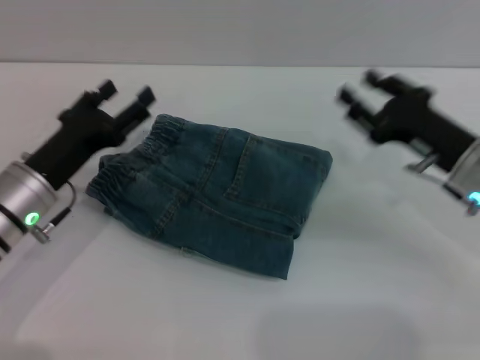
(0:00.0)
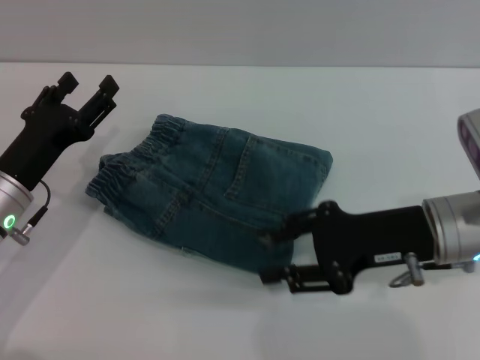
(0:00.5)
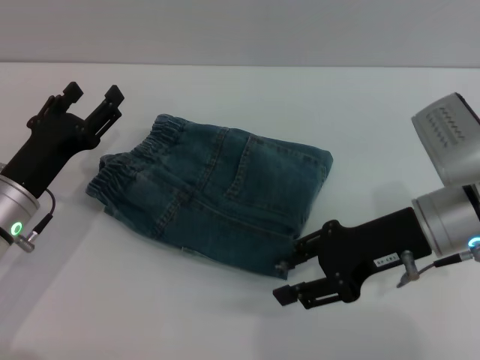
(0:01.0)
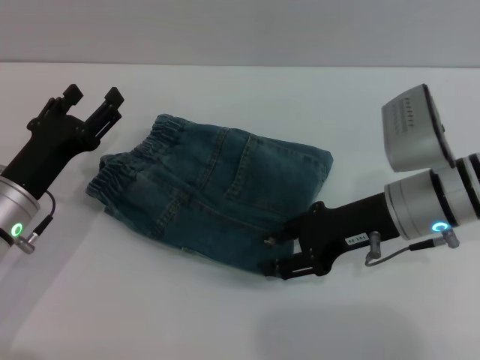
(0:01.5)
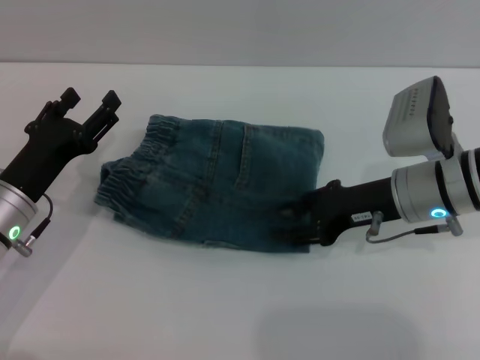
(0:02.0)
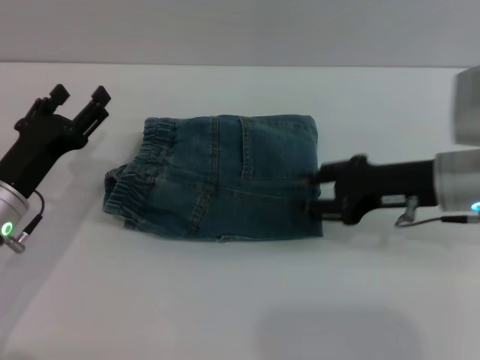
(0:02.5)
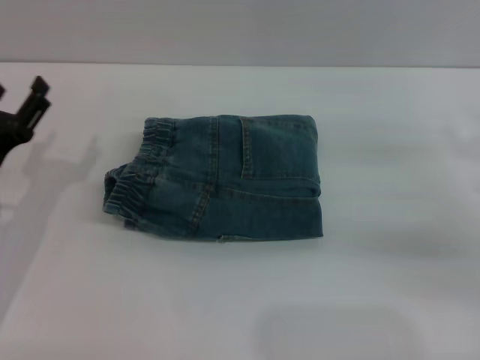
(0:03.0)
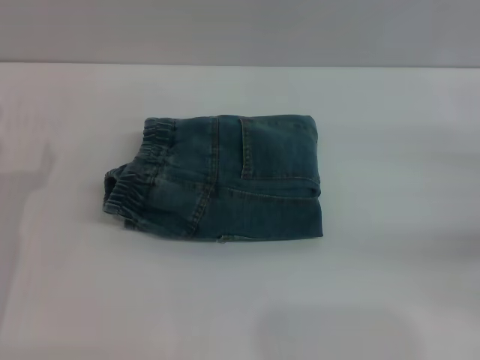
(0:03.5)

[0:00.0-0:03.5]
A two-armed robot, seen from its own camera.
Step, 0:00.0 to 0:02.5: Place the folded trousers onto the center area with the right grippers.
0:00.0 to 0:02.0: The right gripper heads to the left, covering about 5 cm.
0:02.0 to 0:03.5: The left gripper moves about 5 cm; the right gripper moves to the right, about 20 cm.

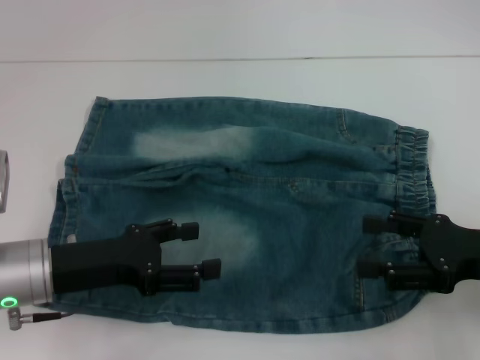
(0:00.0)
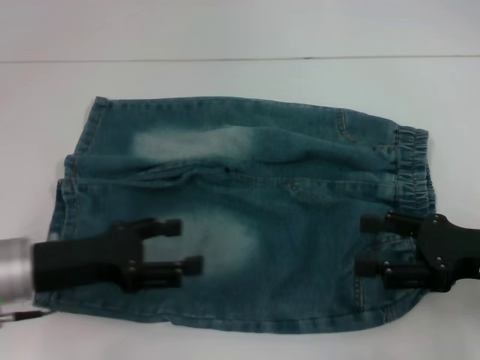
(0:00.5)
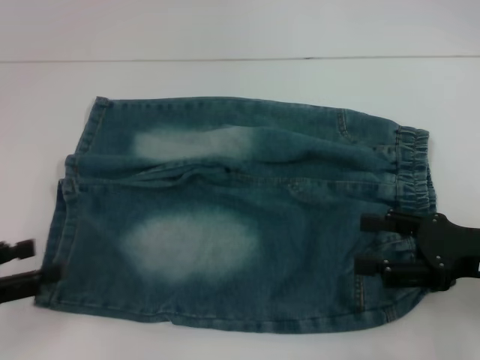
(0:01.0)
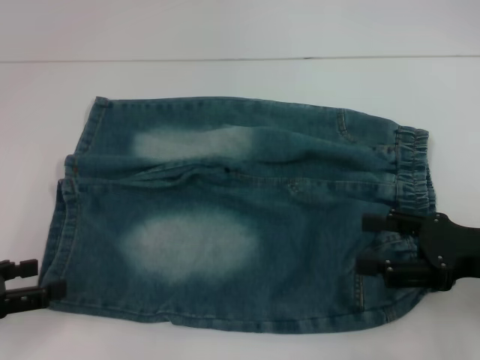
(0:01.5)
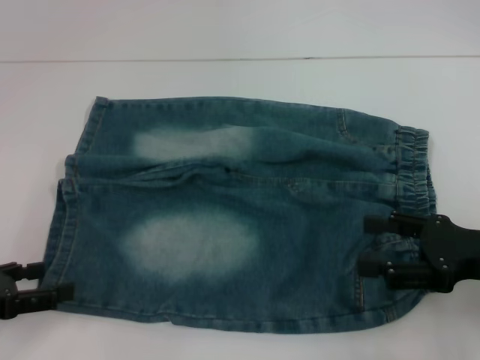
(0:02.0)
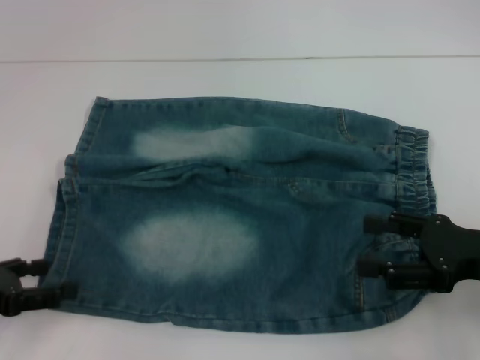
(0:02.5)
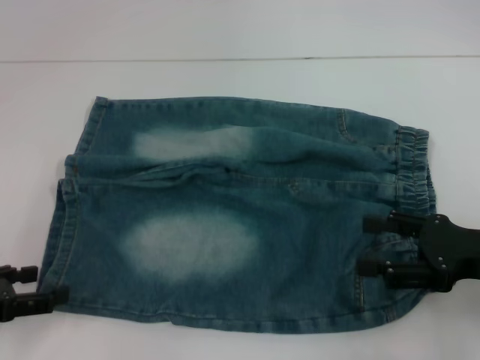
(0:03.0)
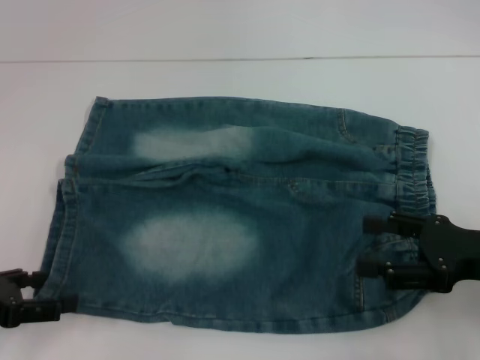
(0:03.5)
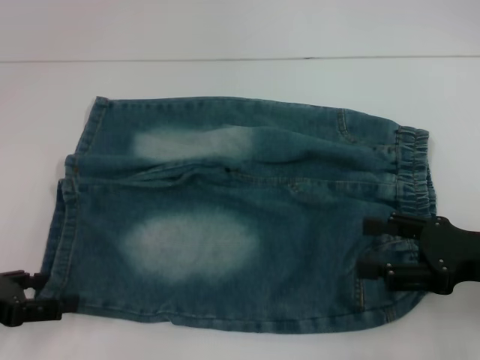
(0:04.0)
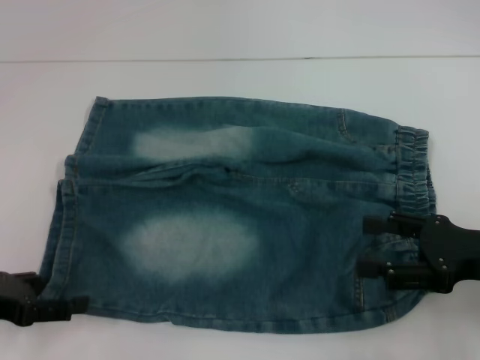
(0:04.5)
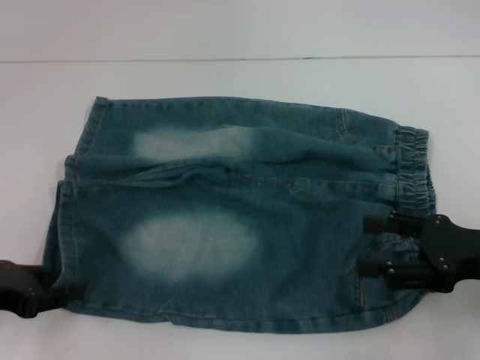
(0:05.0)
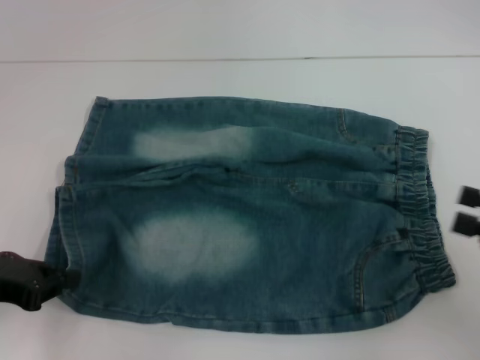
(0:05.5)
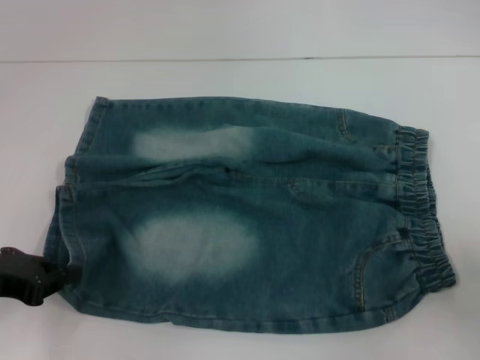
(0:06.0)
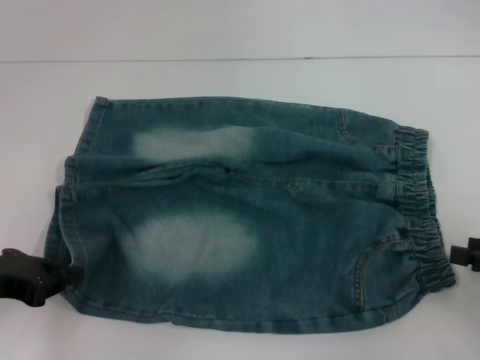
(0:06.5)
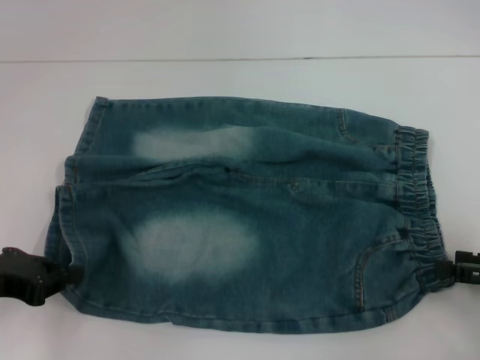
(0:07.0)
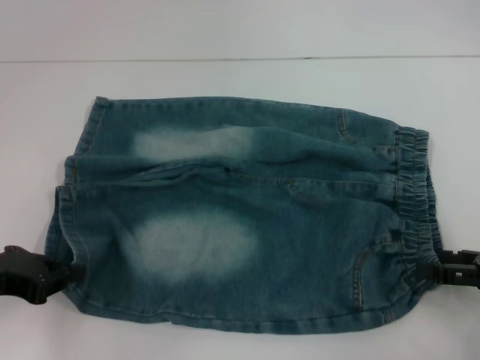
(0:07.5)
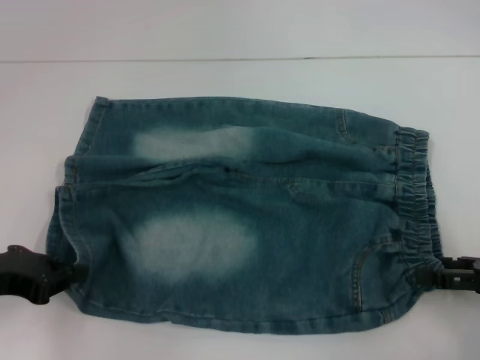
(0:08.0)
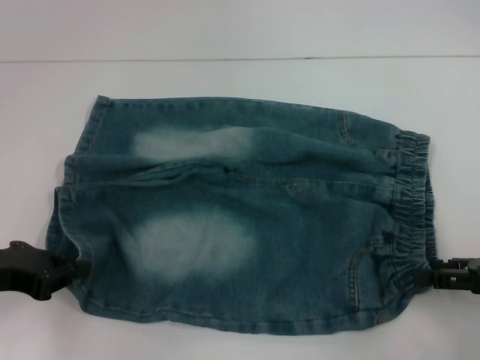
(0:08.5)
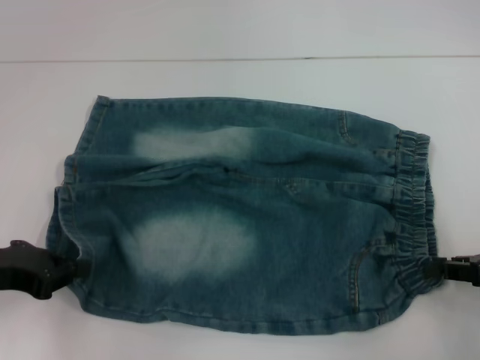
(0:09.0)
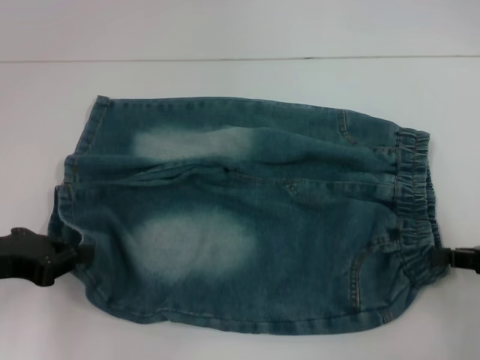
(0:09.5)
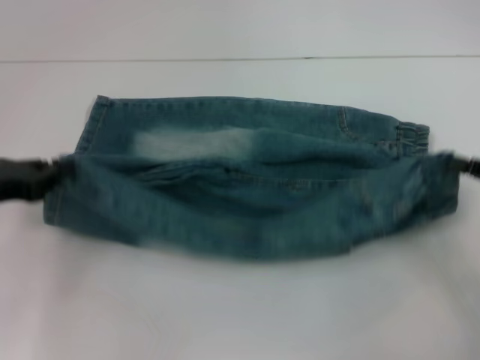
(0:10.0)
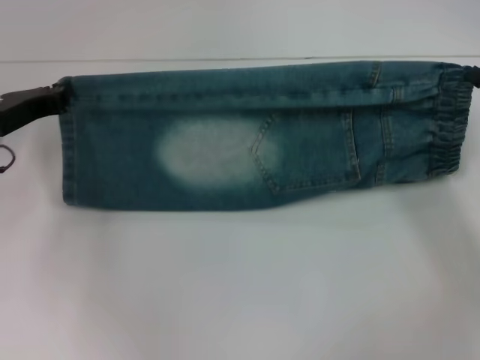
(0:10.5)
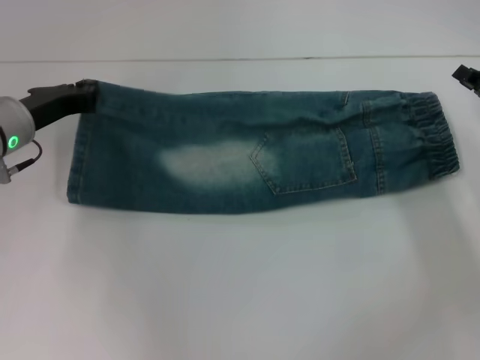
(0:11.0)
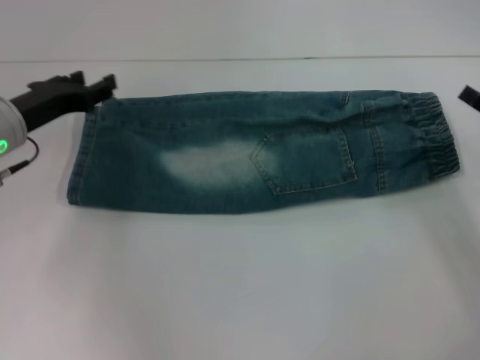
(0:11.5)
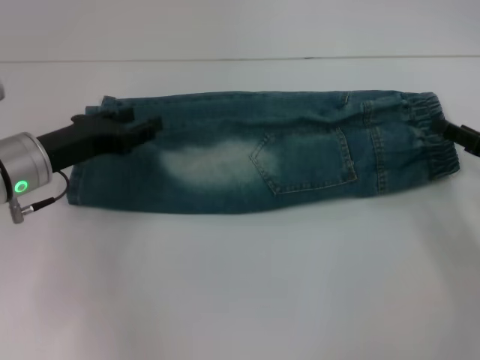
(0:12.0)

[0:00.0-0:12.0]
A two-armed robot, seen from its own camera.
Step, 0:00.0 to 0:04.5: Grab the lower left pant leg with your left hand.
Step, 0:05.0 to 0:08.0: Hold the lower right waistband with your right hand.
Step, 0:08.5 to 0:11.0: Fold upward with your right hand.
0:00.0 to 0:02.0: The left gripper heads to the left, covering some 10 cm.
0:02.0 to 0:04.0: The grippers move only a little.
0:04.0 to 0:06.0: The left gripper closes up, while the right gripper goes roughly 10 cm to the right.
0:06.0 to 0:08.0: The right gripper ends up roughly 5 cm from where it was.
0:08.0 to 0:10.0: The right gripper closes up.
0:10.0 to 0:12.0: The right gripper opens its fingers. The left gripper goes approximately 10 cm to the right and forward, and opens.

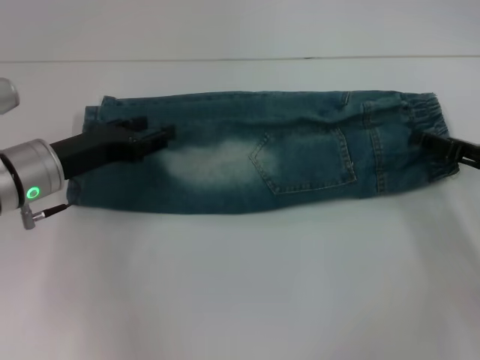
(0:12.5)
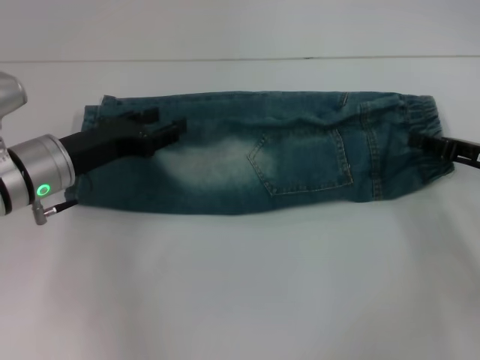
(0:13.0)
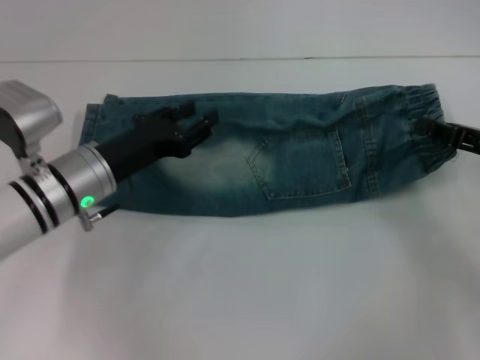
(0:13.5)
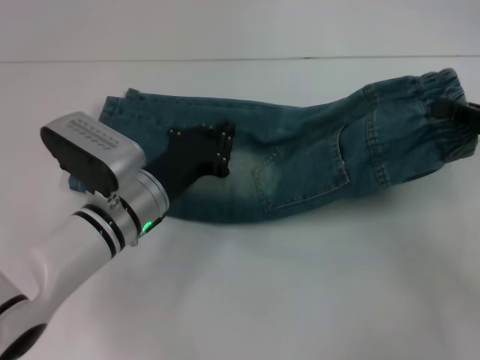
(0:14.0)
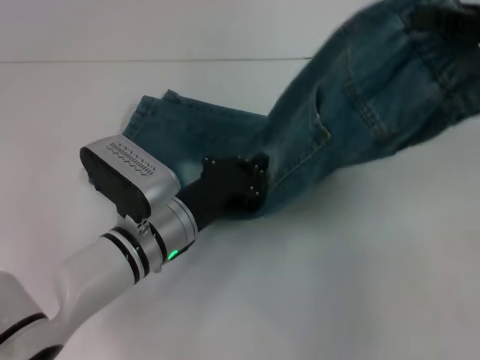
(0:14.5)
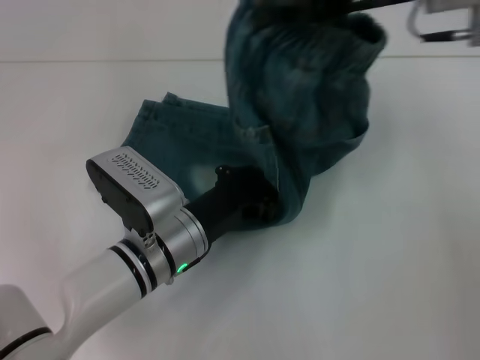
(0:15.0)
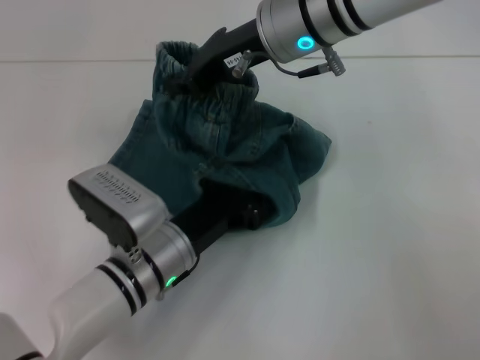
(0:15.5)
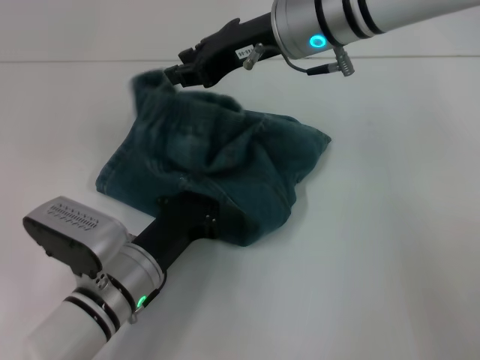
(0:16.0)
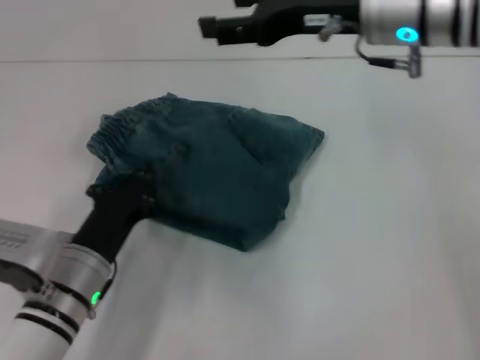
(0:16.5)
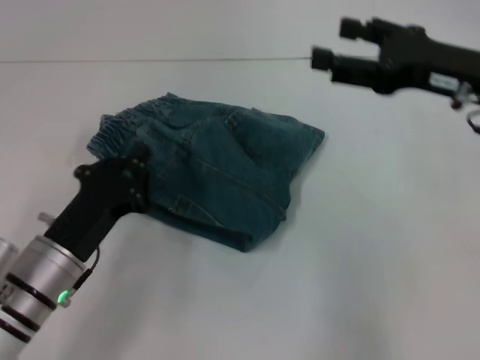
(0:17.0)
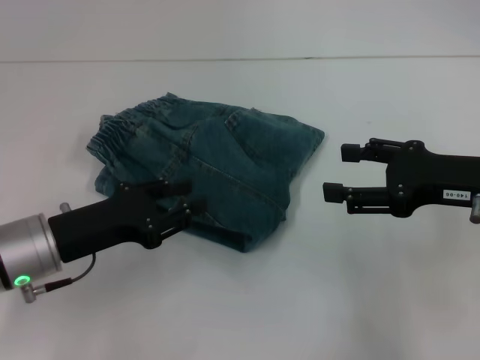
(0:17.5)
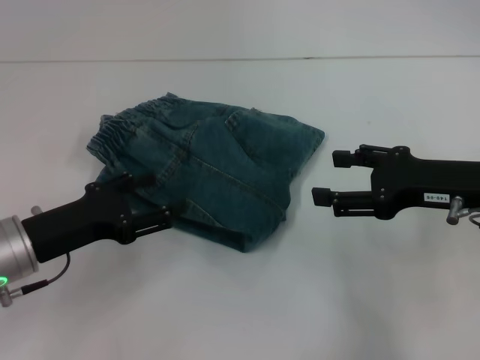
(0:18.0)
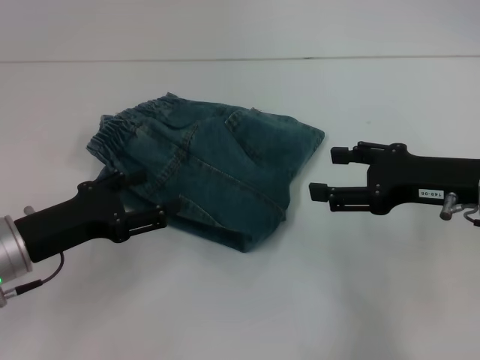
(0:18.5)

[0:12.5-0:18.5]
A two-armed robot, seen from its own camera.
Step, 0:13.0 to 0:15.5: Press the middle of the pants with your left hand.
Step, 0:16.0 to 0:16.5: Fold to the left with your right hand.
0:12.5 to 0:14.5: The right gripper travels upward by approximately 20 cm, and closes its fingers. Meanwhile the left gripper heads to the right and downward, covering about 15 cm, and closes.
0:14.5 to 0:16.5: The right gripper shifts about 15 cm to the left, and opens. Meanwhile the left gripper travels to the left and backward by some 10 cm.
0:16.5 to 0:18.5: The right gripper goes about 20 cm to the right, downward and backward. The left gripper shifts about 10 cm to the left and upward, and opens up.
